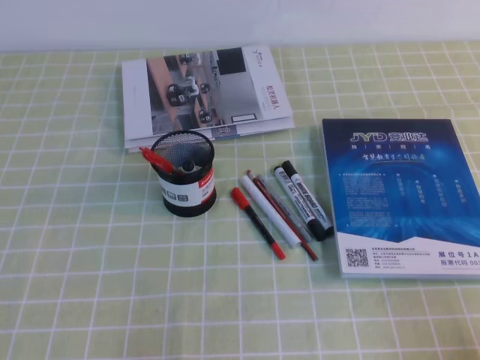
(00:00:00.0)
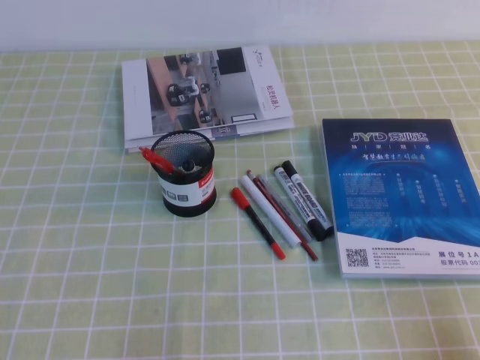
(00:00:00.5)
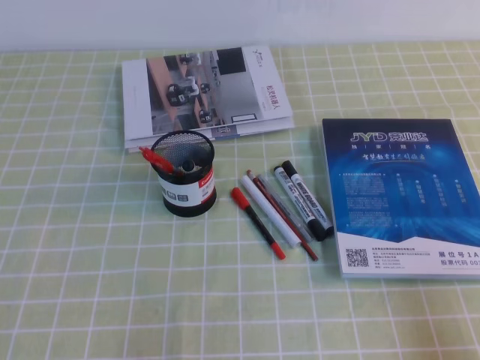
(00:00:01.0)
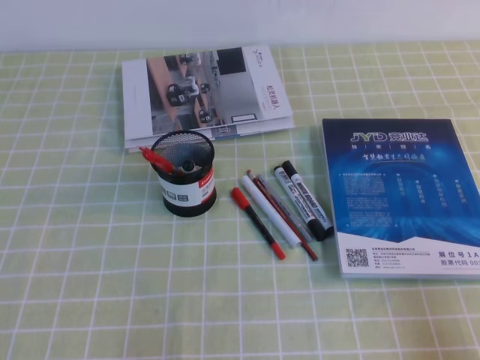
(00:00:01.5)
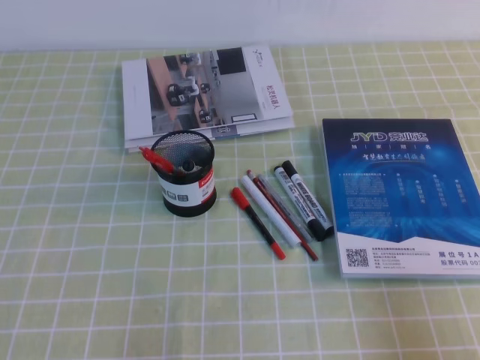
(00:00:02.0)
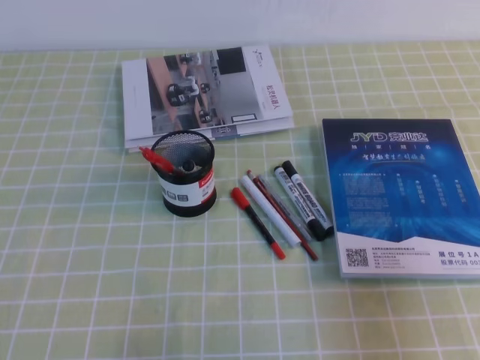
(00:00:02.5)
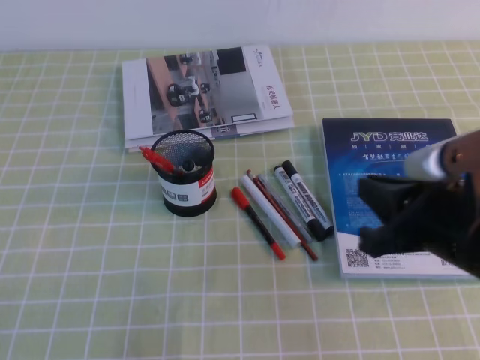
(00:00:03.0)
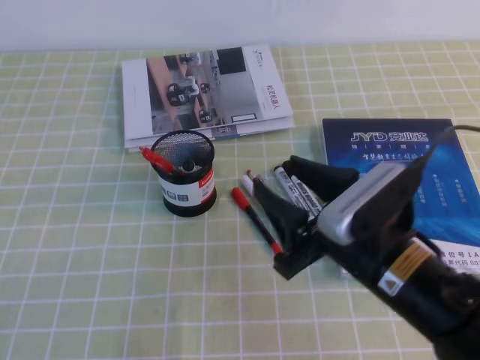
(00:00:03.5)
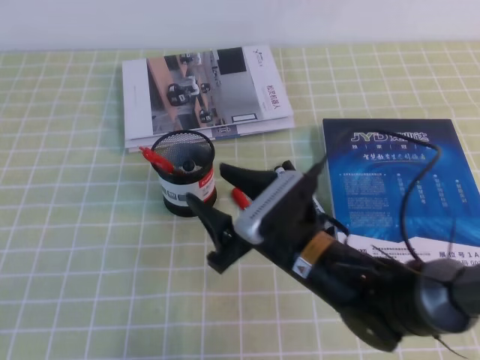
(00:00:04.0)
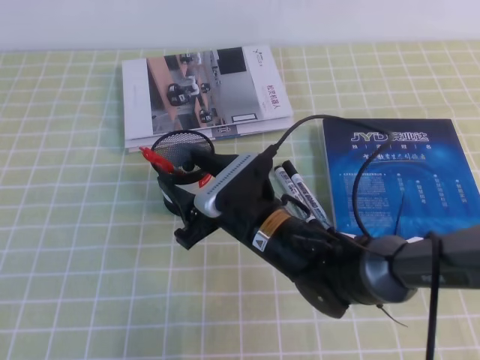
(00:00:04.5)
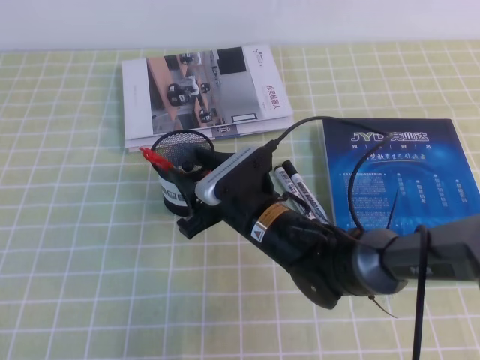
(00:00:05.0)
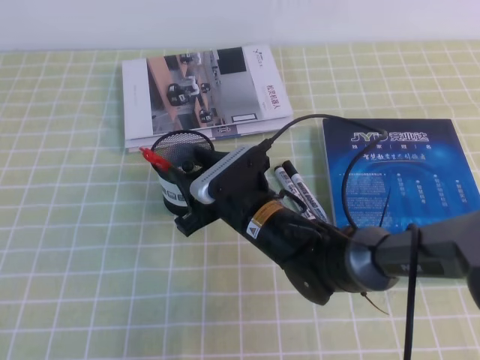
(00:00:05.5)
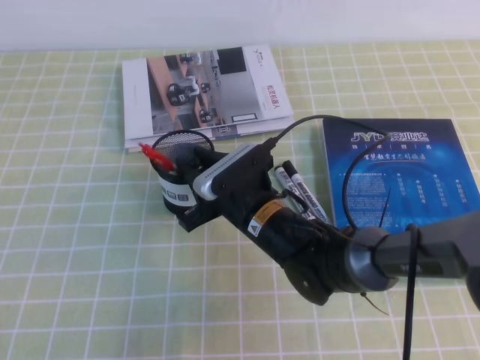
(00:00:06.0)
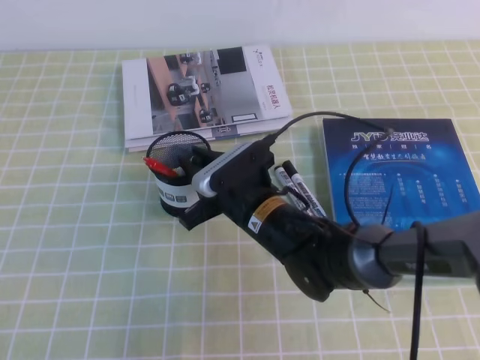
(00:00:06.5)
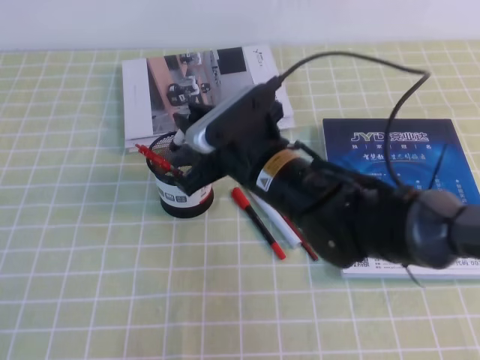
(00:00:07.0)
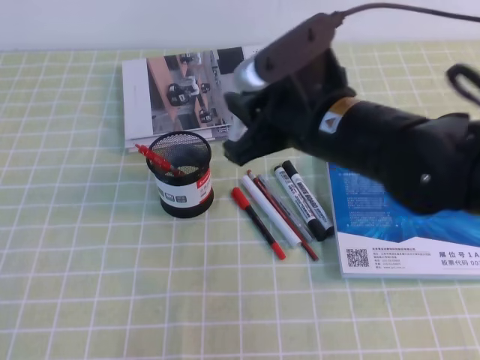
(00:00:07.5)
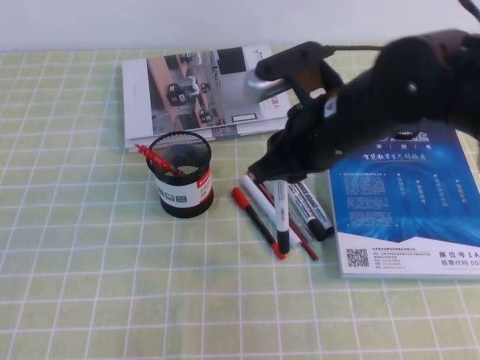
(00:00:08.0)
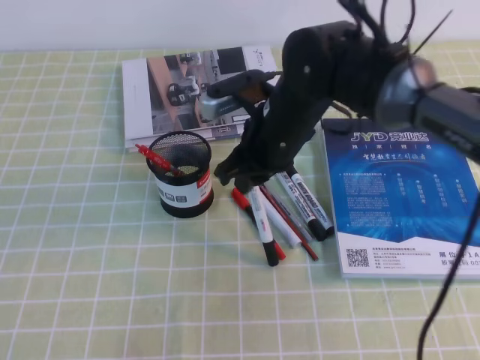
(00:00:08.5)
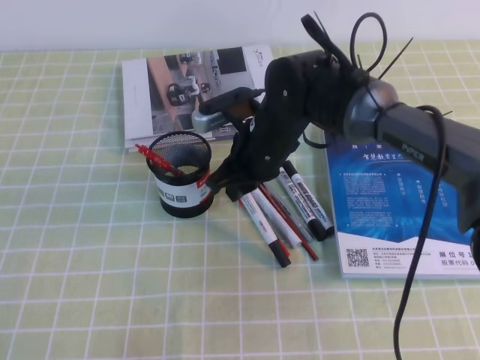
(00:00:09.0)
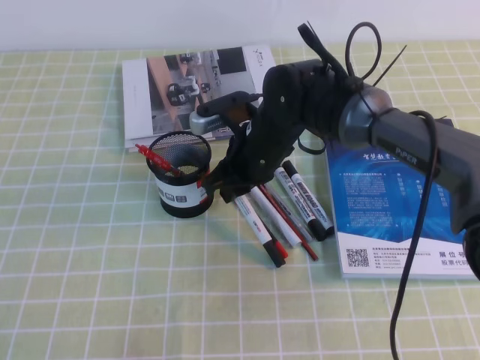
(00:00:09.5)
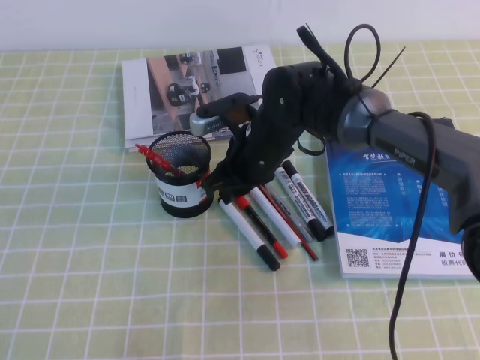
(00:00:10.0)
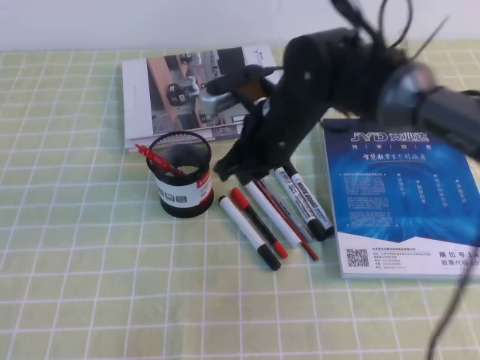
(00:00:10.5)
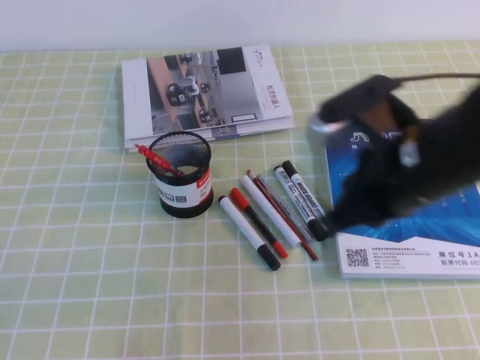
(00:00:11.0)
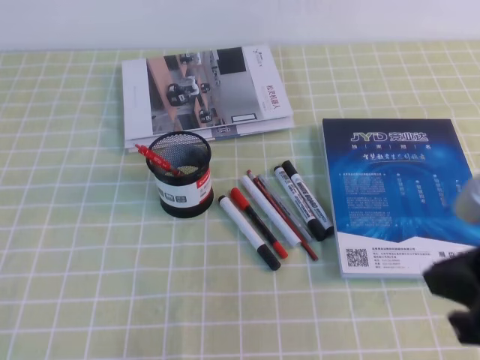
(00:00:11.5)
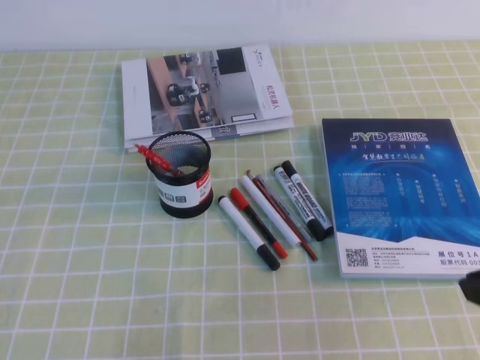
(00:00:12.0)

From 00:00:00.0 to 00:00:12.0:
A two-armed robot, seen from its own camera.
From 00:00:02.0 to 00:00:04.0: The right gripper heads to the left and forward, covering approximately 30 cm, and opens its fingers.
From 00:00:04.0 to 00:00:06.0: The right gripper travels forward and to the left by roughly 10 cm, and closes its fingers.
From 00:00:06.0 to 00:00:08.0: The right gripper is displaced upward and to the right by approximately 15 cm.
From 00:00:08.0 to 00:00:10.0: The right gripper goes roughly 15 cm downward, forward and to the left.
From 00:00:10.0 to 00:00:12.0: The right gripper travels backward and to the right by approximately 35 cm, and closes.

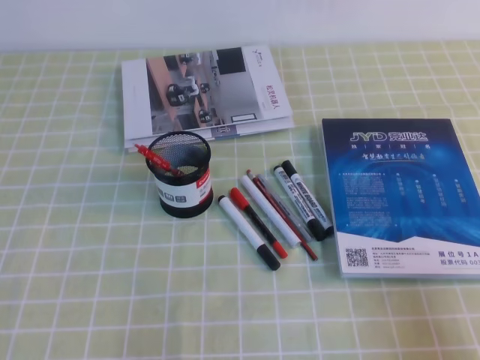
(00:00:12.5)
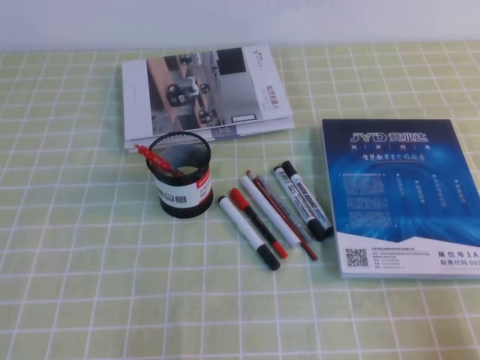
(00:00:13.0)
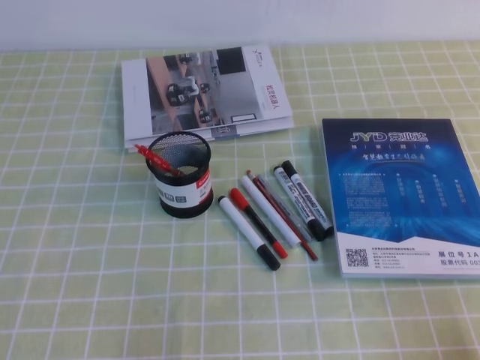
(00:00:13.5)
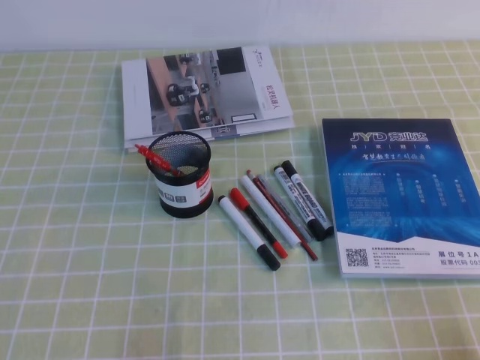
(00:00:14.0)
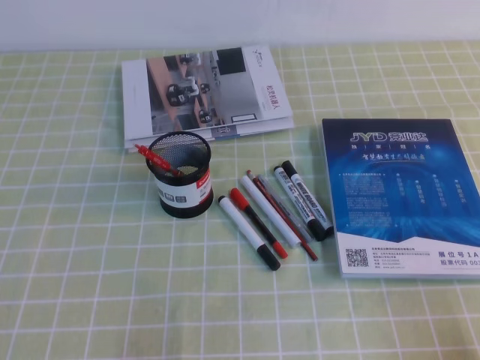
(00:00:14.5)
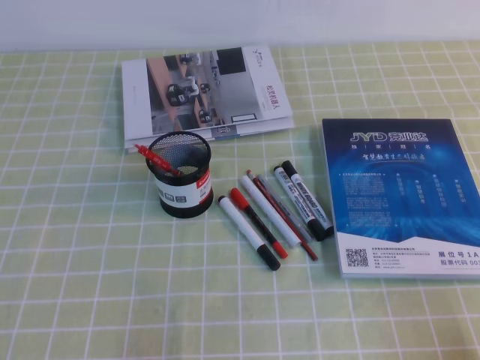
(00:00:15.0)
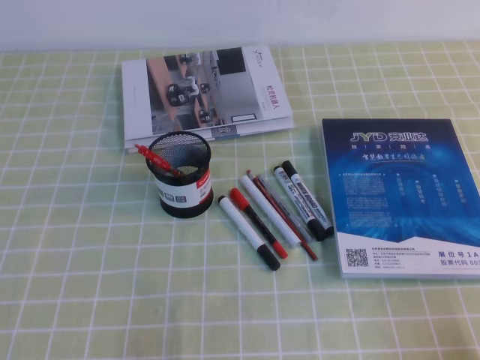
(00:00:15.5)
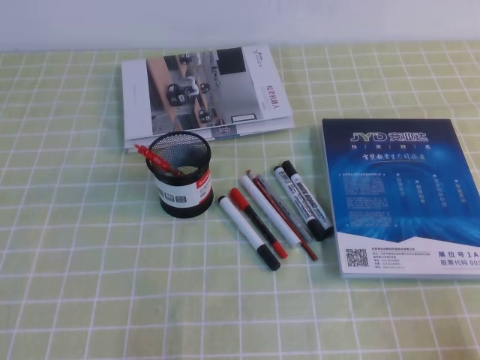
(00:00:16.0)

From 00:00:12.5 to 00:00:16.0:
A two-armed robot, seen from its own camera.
From 00:00:14.5 to 00:00:16.0: Both grippers stay put.

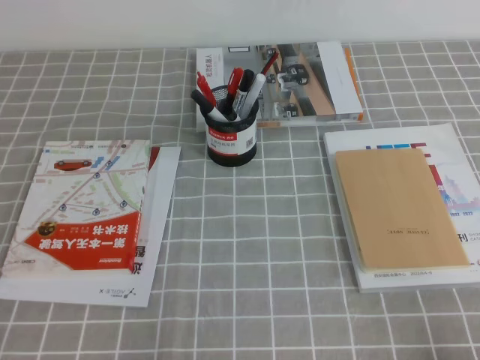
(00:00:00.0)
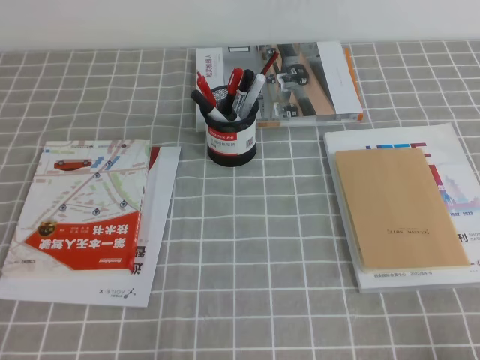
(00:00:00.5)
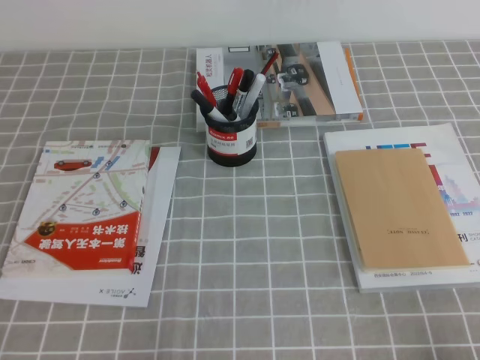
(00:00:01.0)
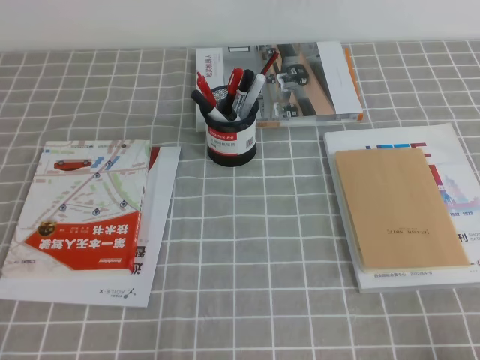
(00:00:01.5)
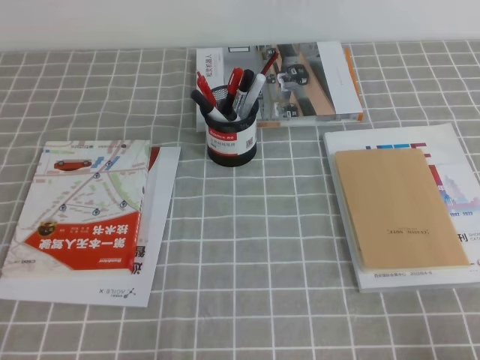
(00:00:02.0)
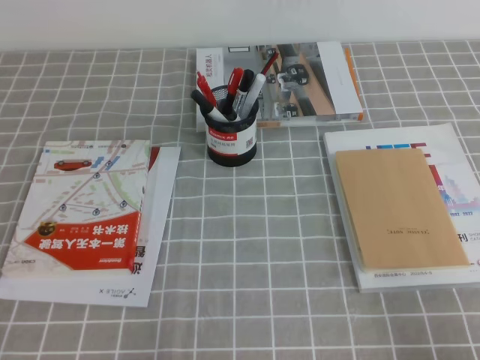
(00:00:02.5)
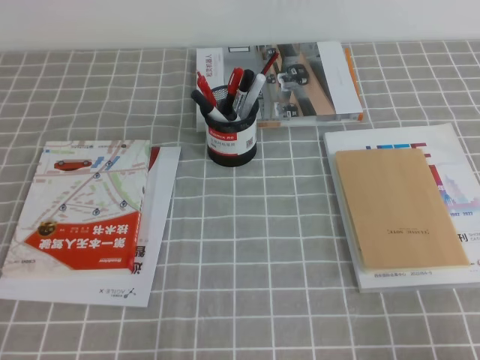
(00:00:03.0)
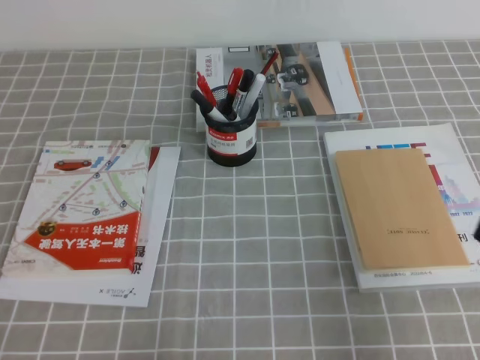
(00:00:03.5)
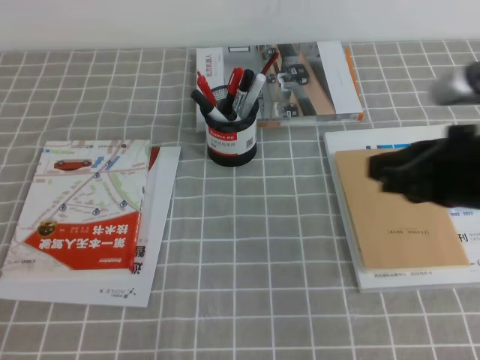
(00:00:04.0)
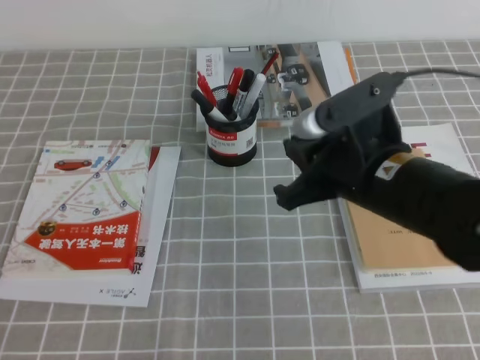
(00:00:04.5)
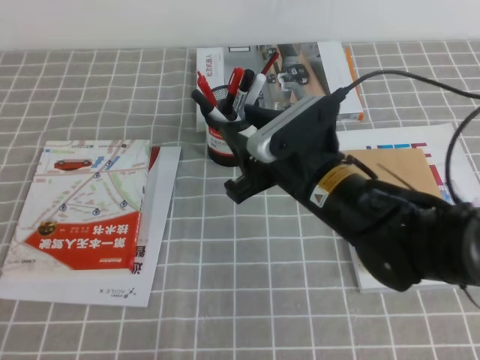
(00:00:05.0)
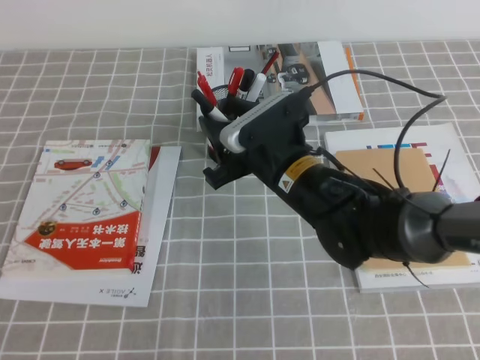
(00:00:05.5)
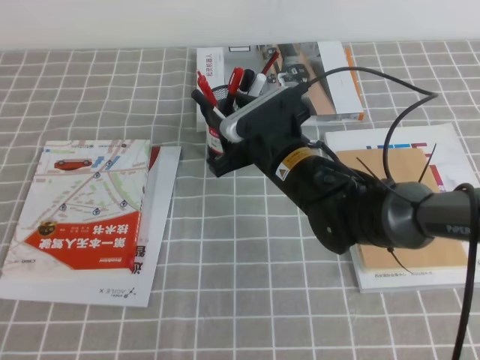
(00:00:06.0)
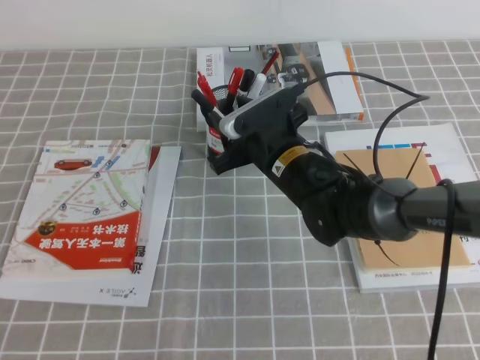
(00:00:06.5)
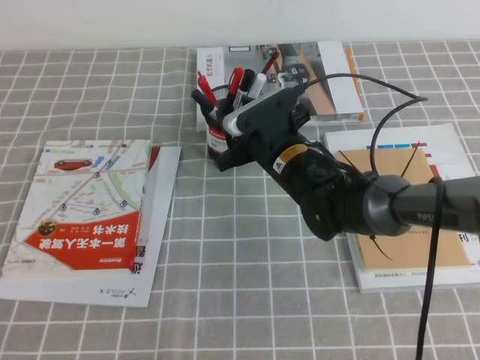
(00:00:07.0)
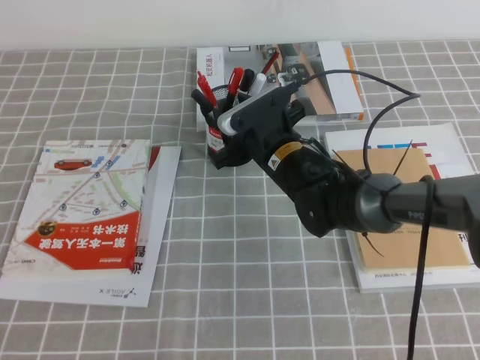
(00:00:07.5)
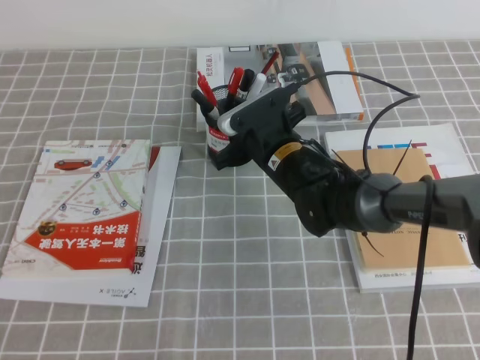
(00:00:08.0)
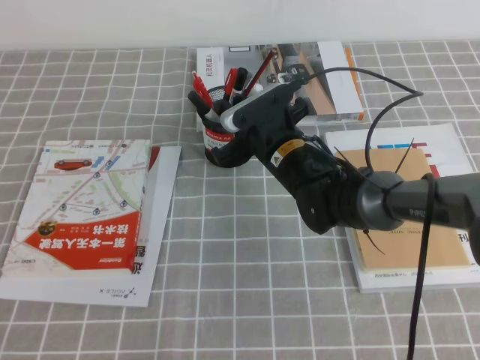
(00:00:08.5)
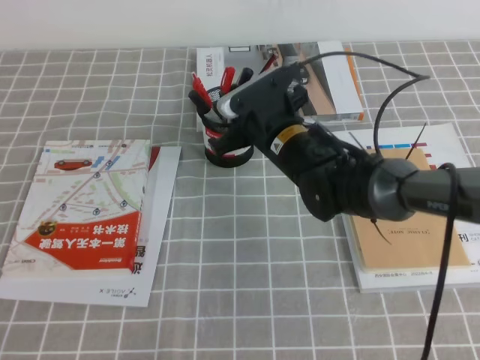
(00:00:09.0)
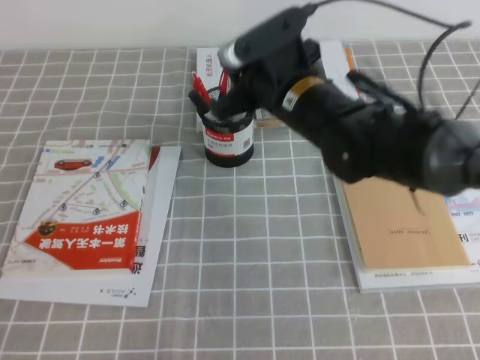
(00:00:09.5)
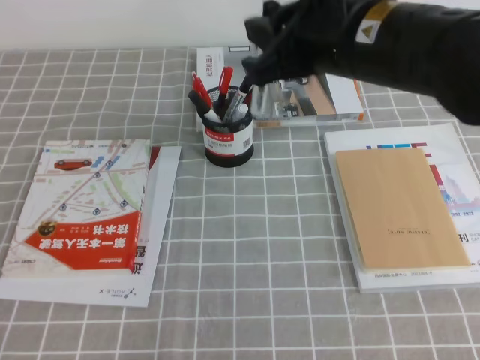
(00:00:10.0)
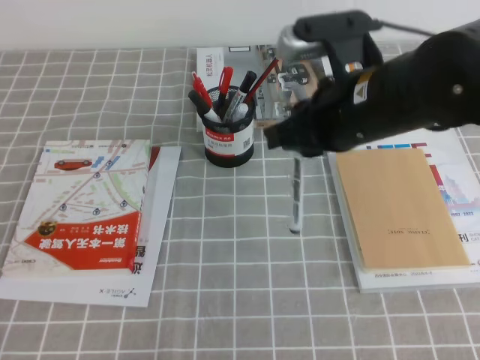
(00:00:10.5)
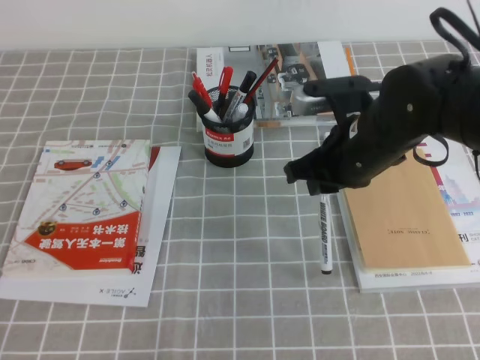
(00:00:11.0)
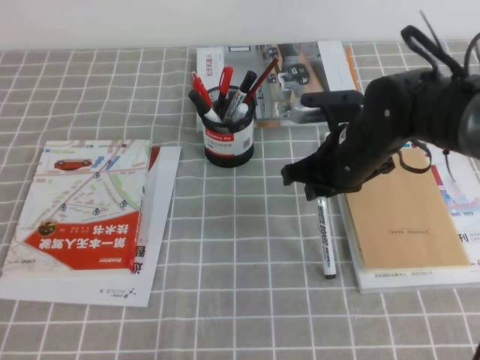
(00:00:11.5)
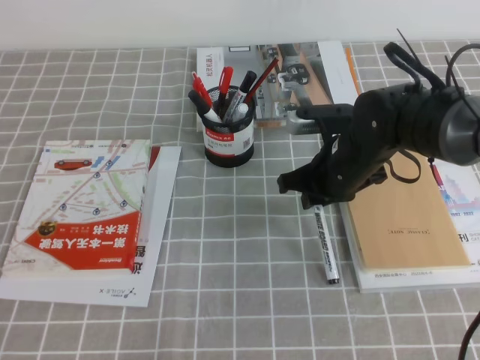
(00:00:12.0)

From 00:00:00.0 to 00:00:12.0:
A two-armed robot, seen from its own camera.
From 00:00:02.0 to 00:00:04.0: The right gripper shifts roughly 25 cm forward, upward and to the left.
From 00:00:04.0 to 00:00:06.0: The right gripper moves to the left, forward and downward, roughly 25 cm, and opens up.
From 00:00:06.0 to 00:00:08.0: The right gripper shifts by approximately 5 cm, and closes.
From 00:00:08.0 to 00:00:10.0: The right gripper heads upward and backward, covering about 20 cm.
From 00:00:10.0 to 00:00:12.0: The right gripper is displaced downward by approximately 20 cm.
